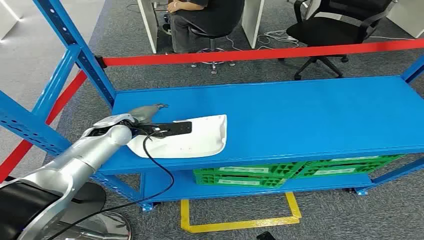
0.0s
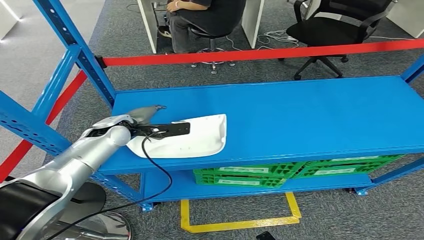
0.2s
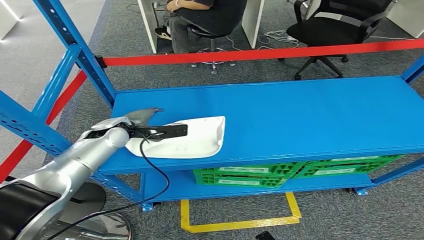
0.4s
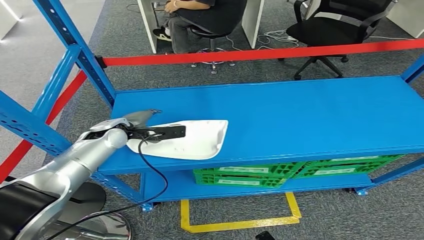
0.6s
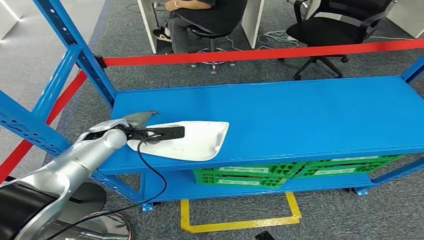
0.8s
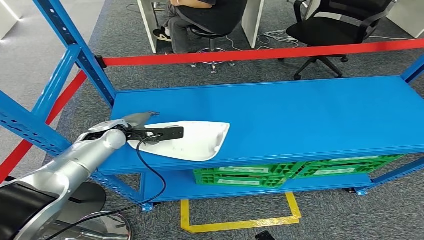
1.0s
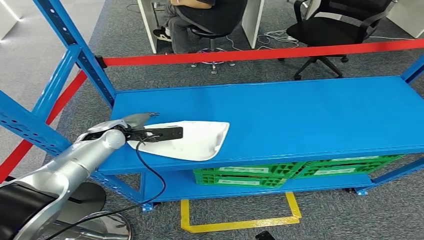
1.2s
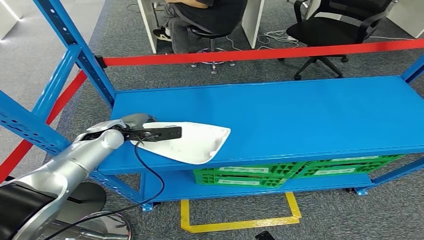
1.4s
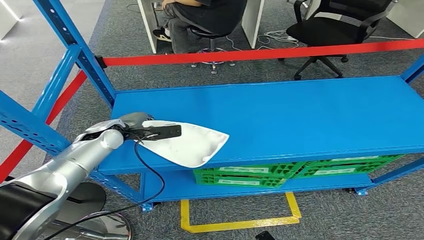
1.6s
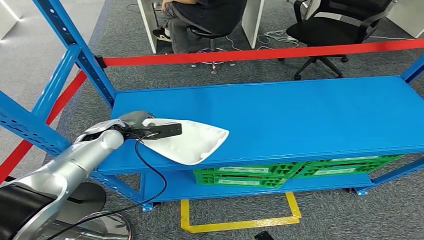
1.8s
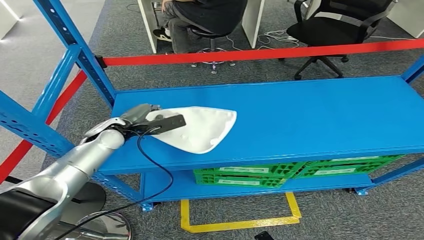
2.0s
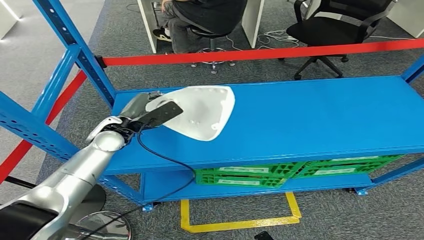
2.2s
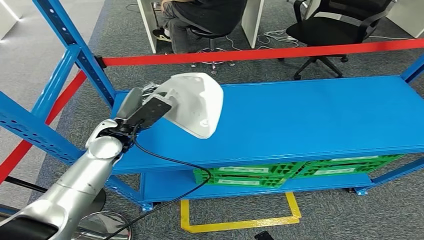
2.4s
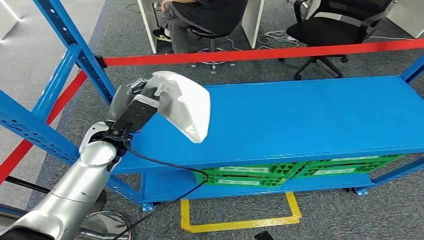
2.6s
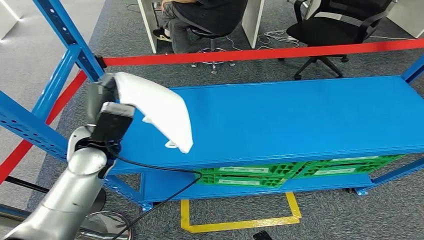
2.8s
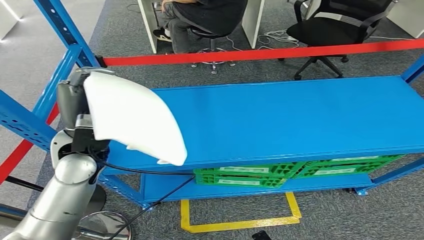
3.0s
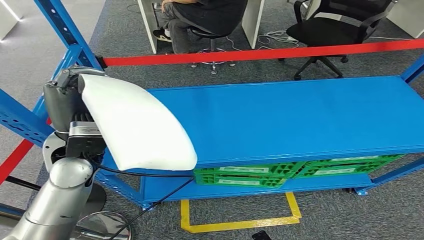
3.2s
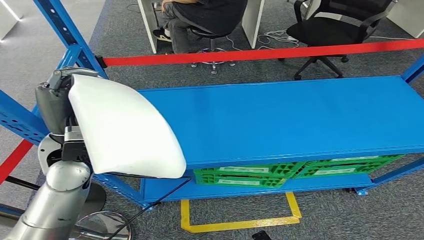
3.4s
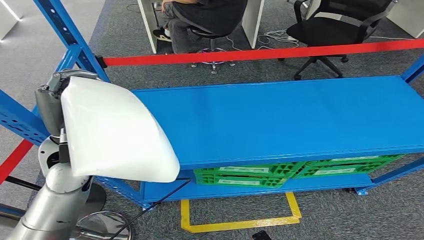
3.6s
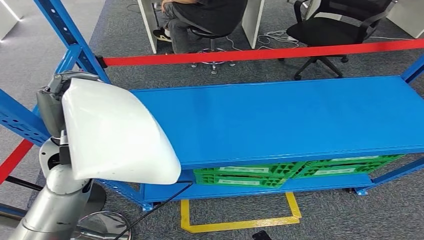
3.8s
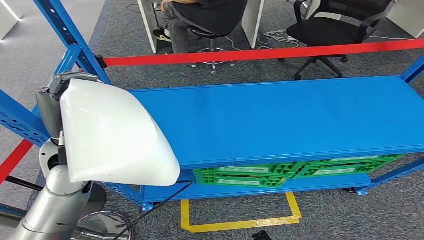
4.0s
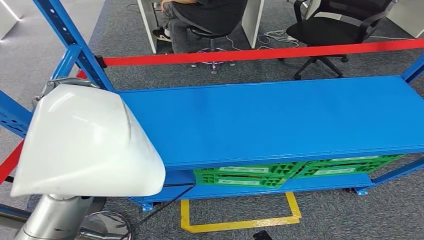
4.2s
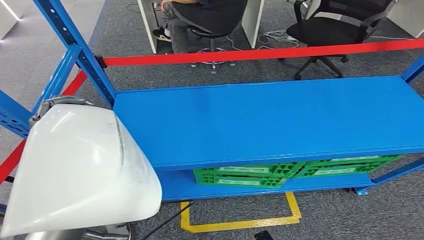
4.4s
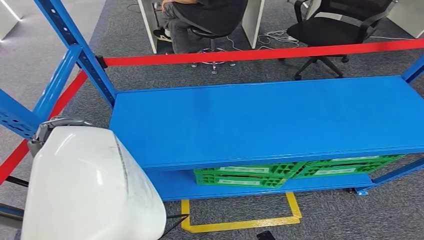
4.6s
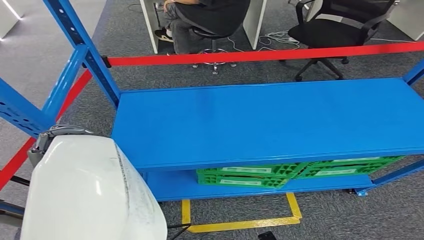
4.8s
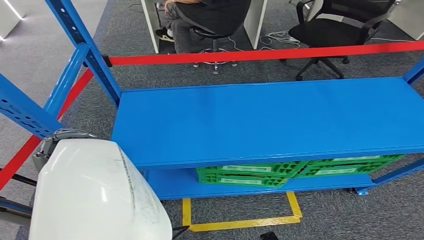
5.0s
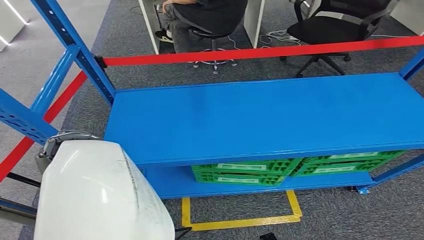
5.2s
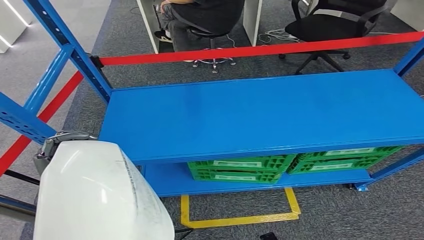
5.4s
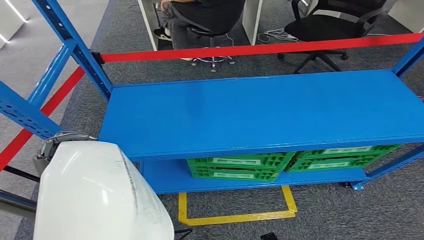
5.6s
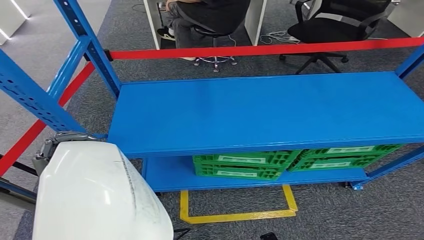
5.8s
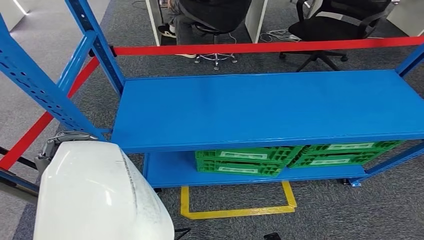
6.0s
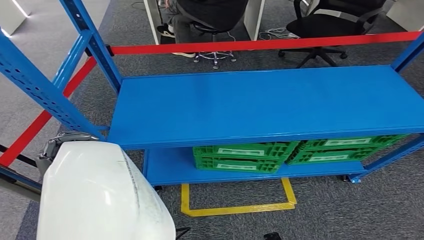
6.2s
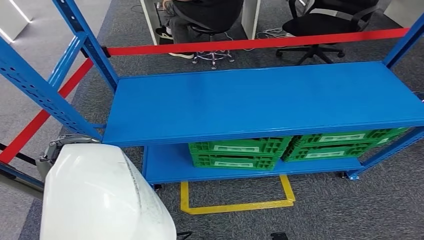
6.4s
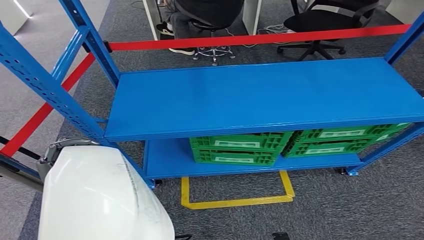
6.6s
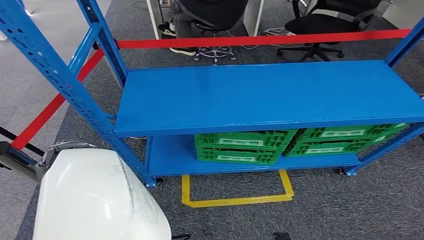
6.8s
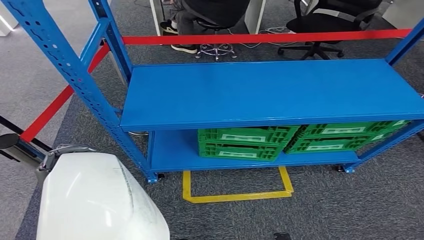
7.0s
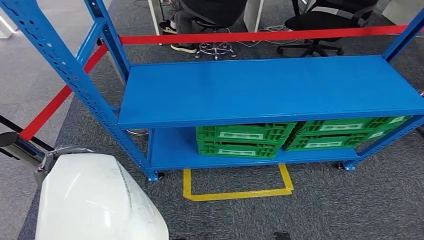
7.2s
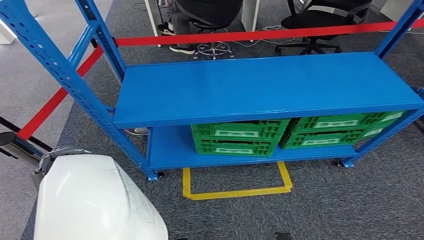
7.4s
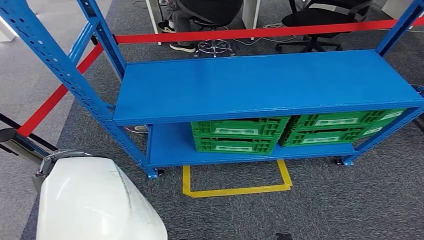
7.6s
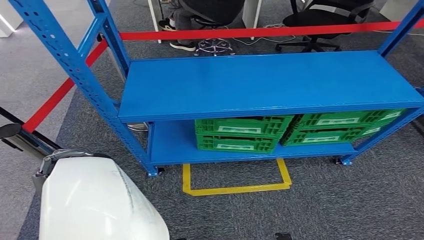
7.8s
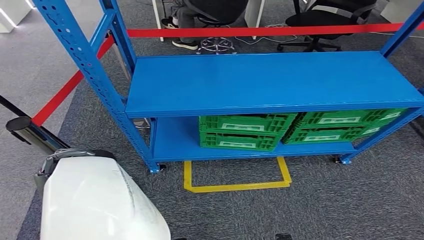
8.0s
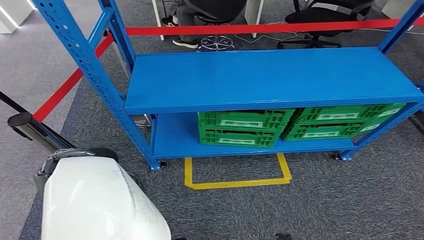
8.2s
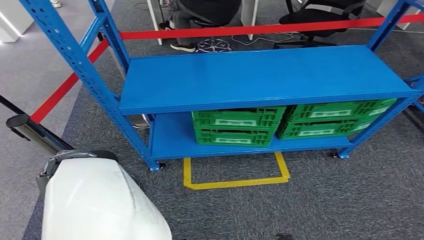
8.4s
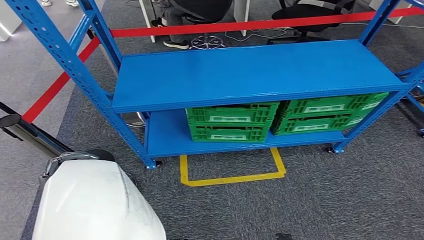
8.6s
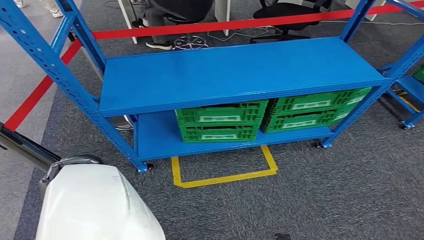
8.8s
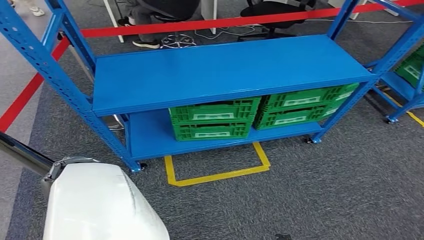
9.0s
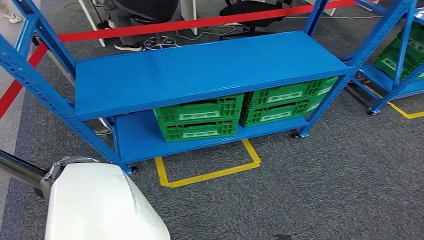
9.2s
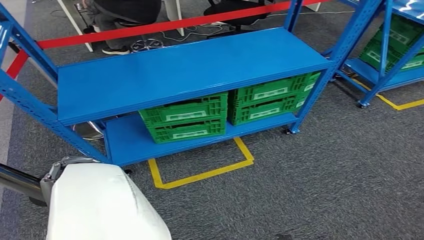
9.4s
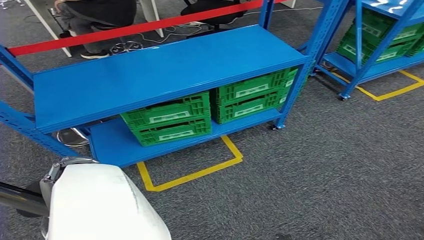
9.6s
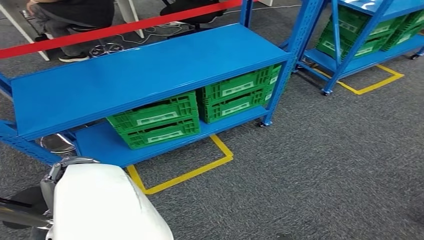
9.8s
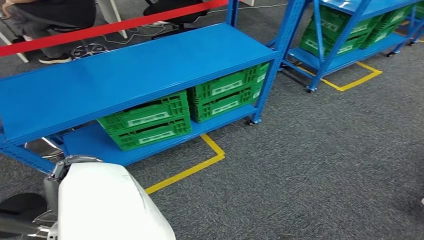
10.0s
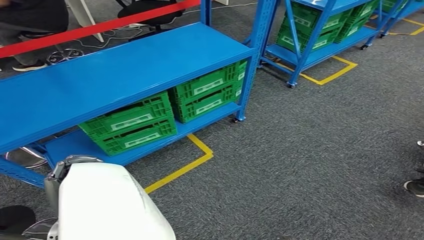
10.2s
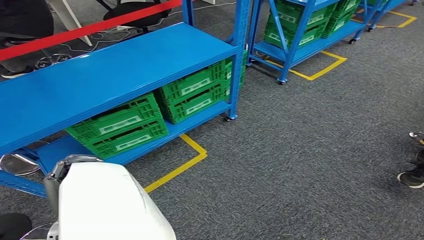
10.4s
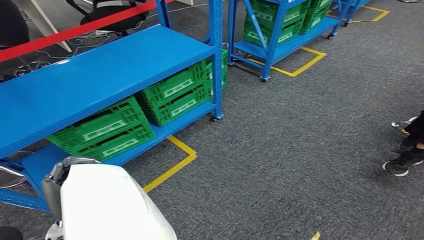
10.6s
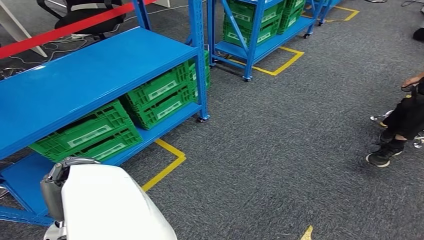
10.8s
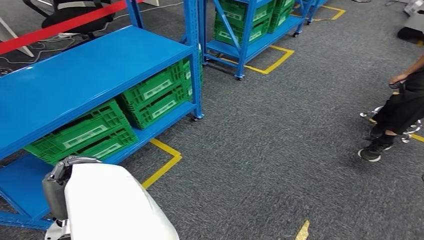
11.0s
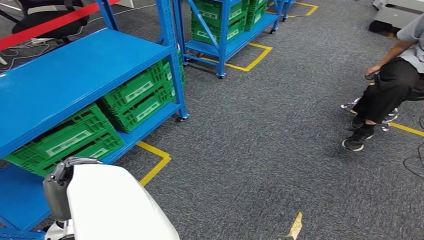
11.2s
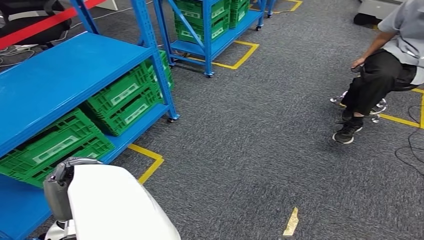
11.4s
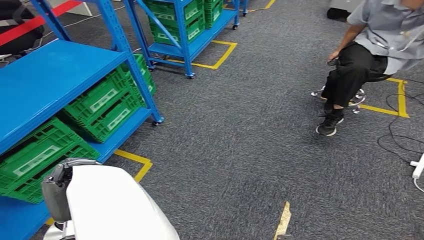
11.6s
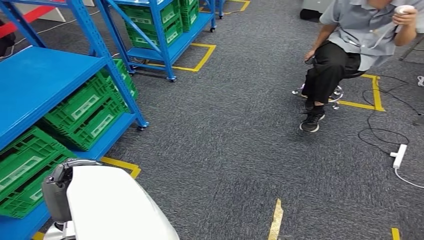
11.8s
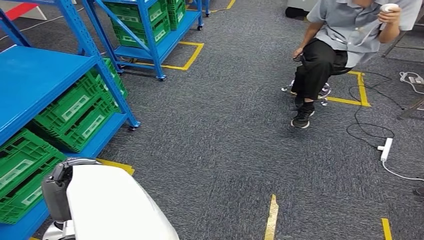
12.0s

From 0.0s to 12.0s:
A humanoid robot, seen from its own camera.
Step, from 0.0s to 3.2s: Take small components from the rack.
From 1.6s to 3.0s: The left hand heads backward and upward, covering roughly 15 cm.

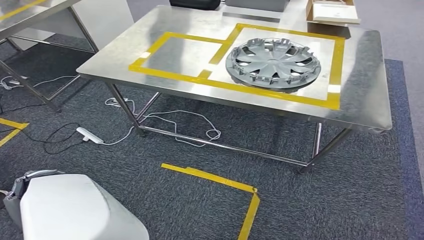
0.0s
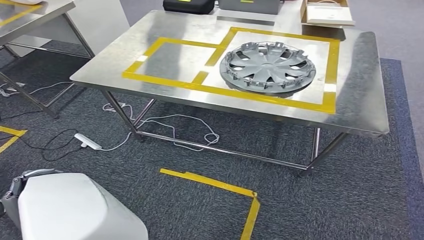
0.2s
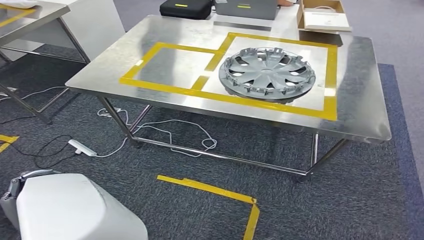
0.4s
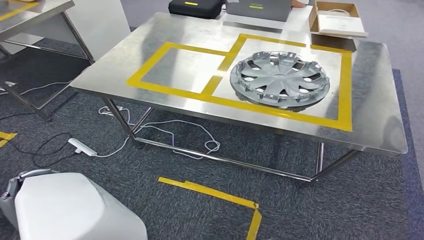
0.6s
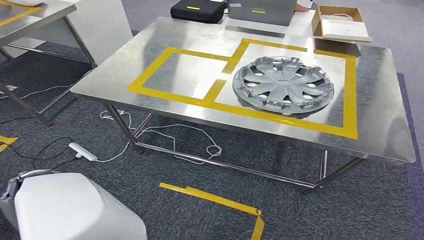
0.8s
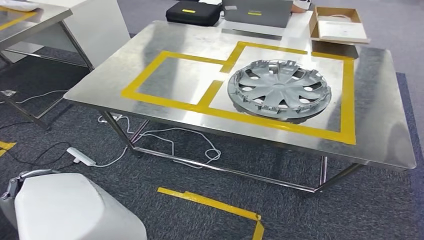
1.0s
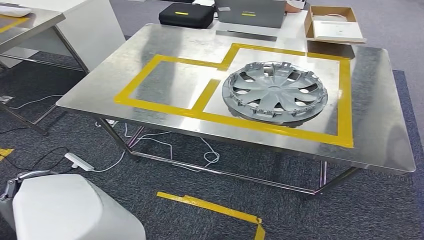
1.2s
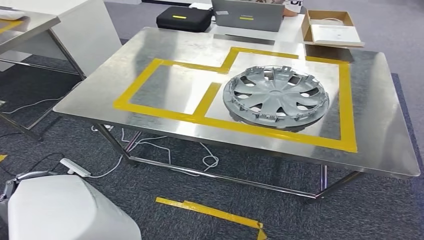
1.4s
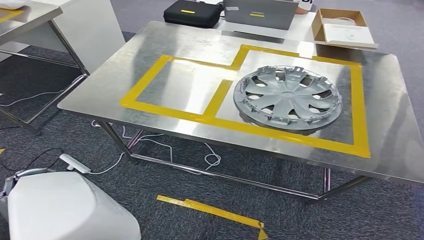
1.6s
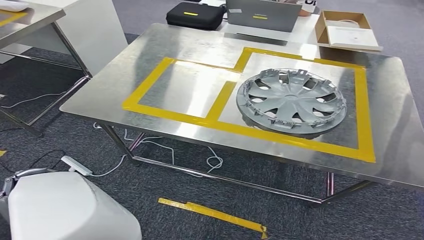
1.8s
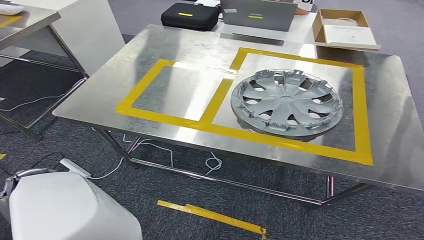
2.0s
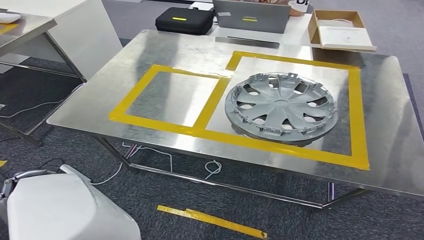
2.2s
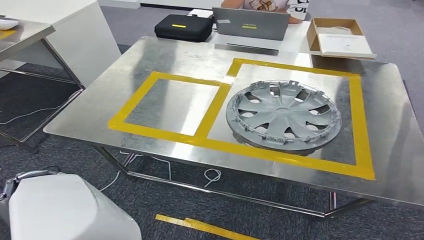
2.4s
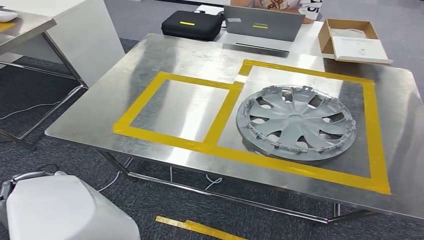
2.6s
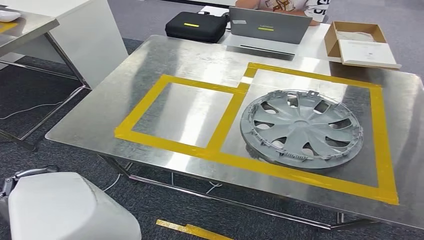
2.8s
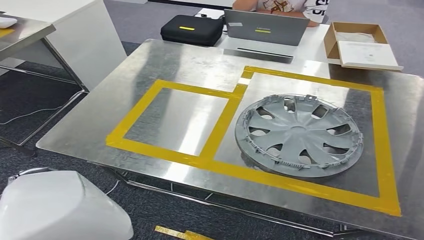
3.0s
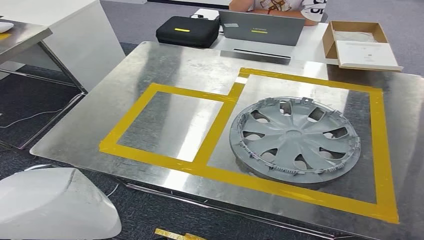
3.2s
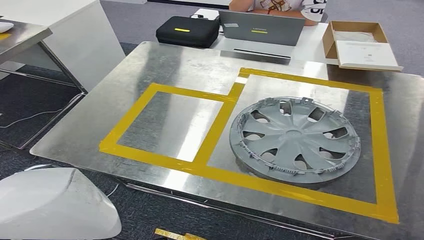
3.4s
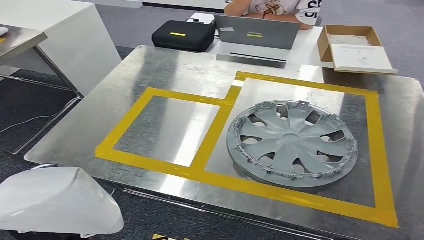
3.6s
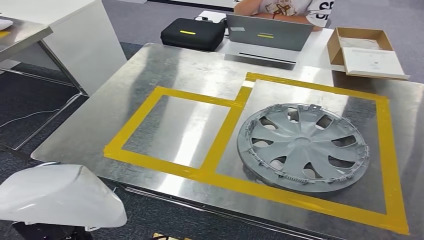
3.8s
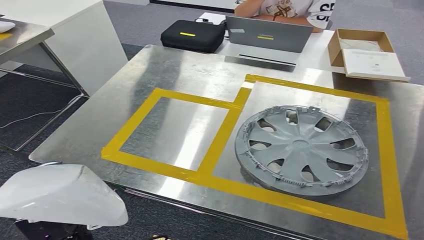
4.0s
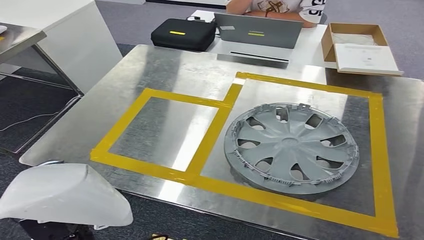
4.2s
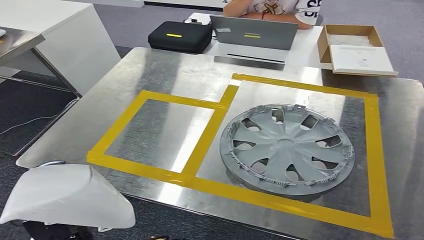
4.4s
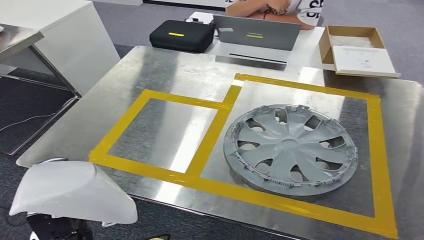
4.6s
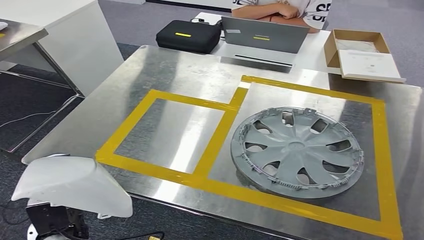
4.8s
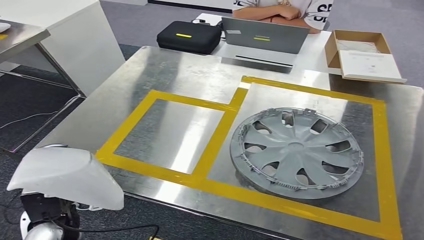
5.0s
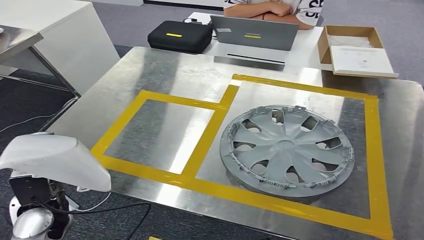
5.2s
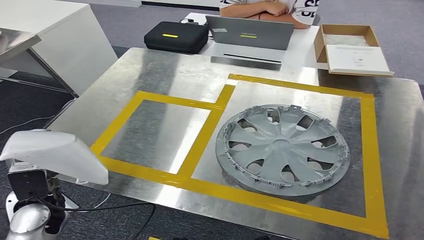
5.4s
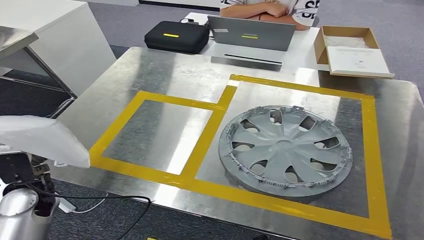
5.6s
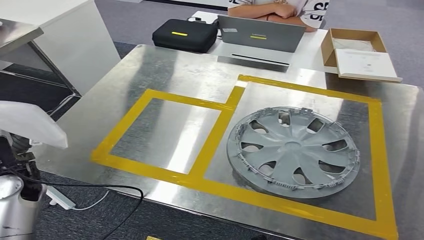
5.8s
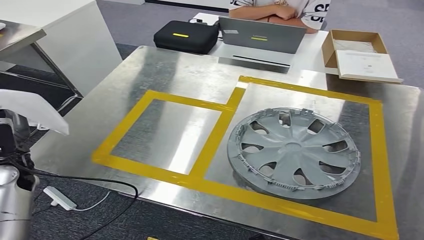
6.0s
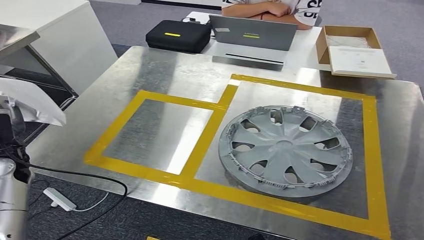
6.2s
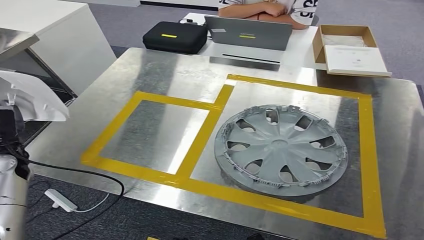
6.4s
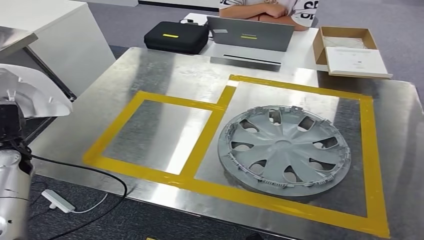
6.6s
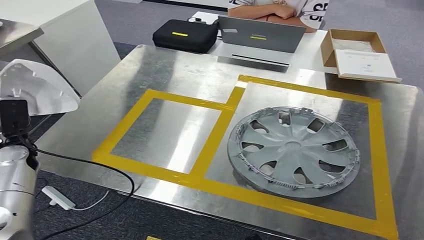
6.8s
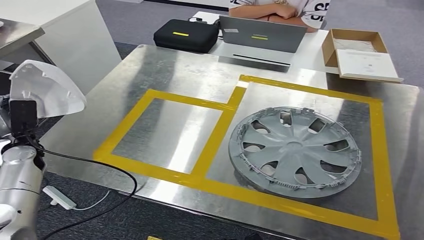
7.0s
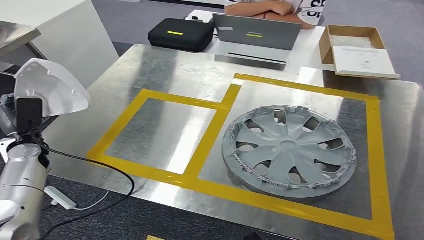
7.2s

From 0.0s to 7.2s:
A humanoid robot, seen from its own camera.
Step, from 0.0s to 5.6s: Move the small parts to the workbench.
